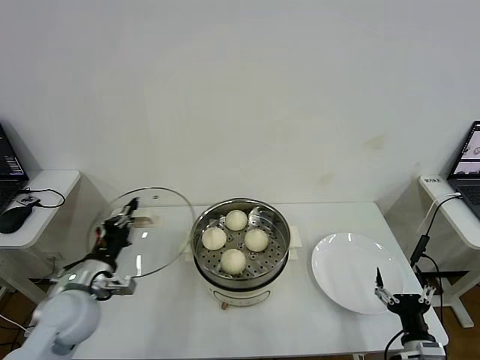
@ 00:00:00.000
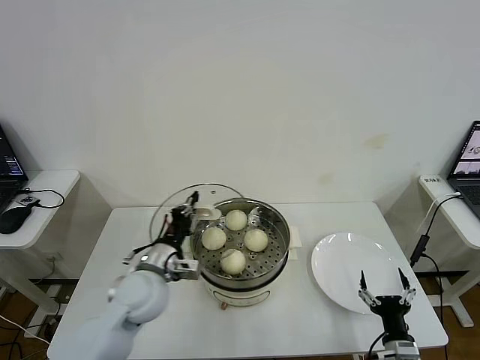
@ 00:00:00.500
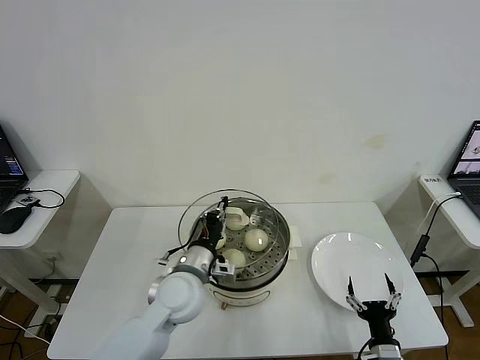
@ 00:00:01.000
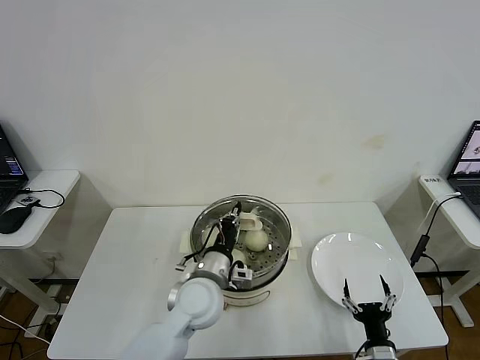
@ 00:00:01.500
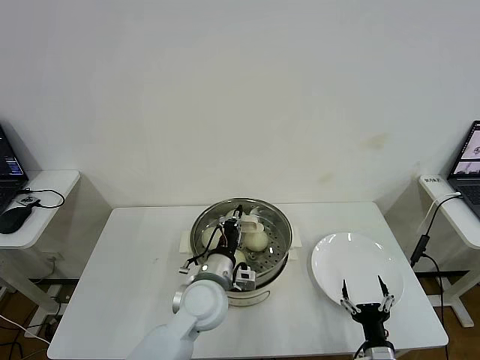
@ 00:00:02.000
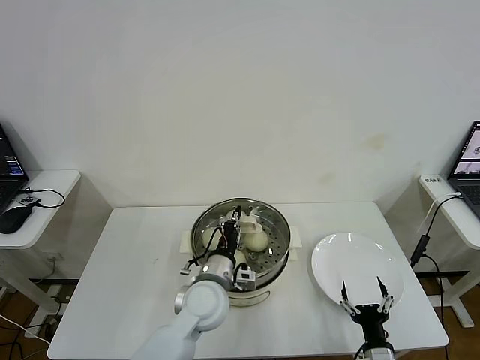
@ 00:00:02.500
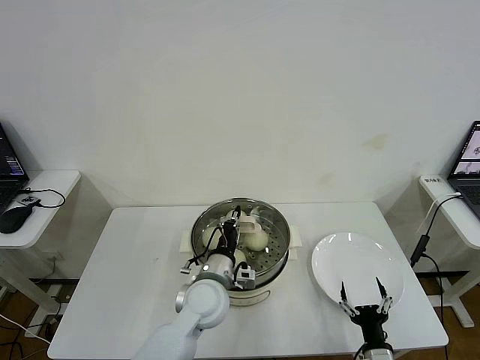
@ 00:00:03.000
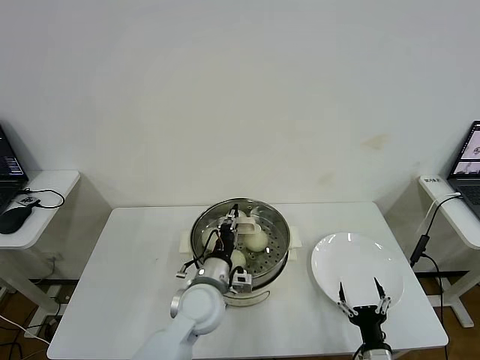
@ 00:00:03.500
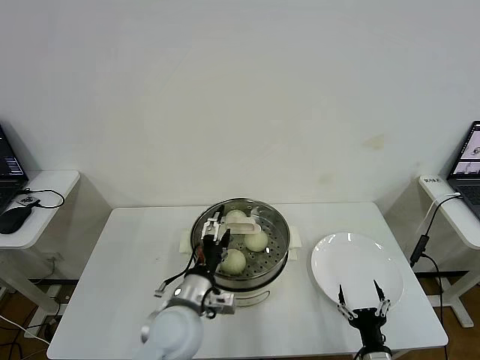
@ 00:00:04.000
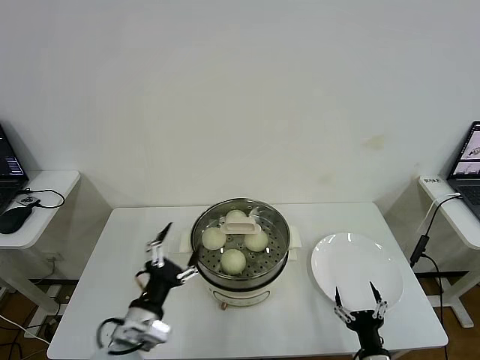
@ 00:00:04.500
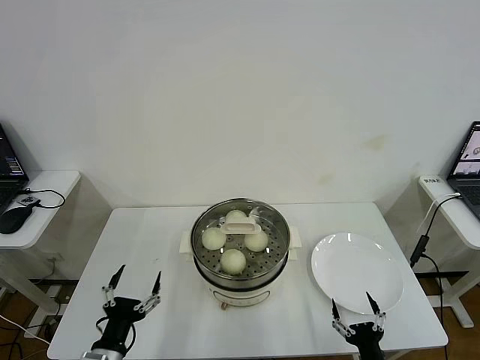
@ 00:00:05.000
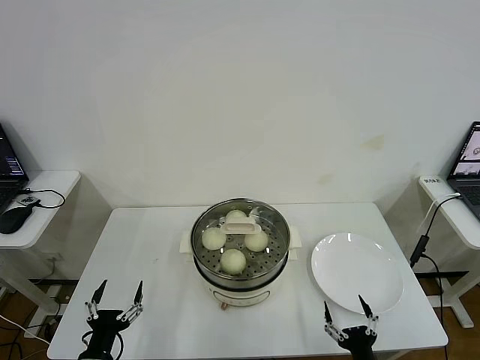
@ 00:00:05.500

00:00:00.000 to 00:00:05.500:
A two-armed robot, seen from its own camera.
Step, 00:00:00.000 to 00:00:03.500: Place the pot lid on the steamer with left gripper.
00:00:00.000 to 00:00:02.000: The left gripper goes some 25 cm to the right, while the right gripper goes roughly 10 cm to the left and downward.
00:00:02.000 to 00:00:03.500: The grippers make only small movements.
00:00:03.500 to 00:00:05.500: The right gripper moves backward, roughly 5 cm. The left gripper is displaced to the left and backward by roughly 30 cm, and opens.
